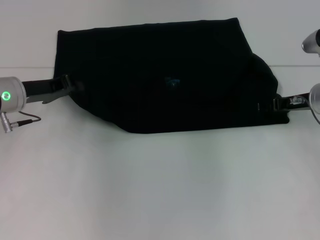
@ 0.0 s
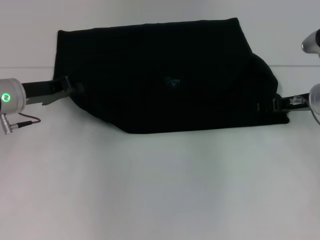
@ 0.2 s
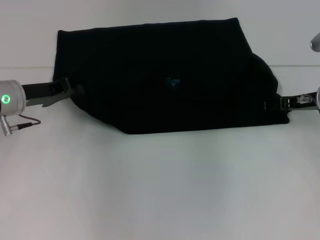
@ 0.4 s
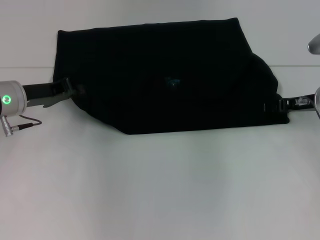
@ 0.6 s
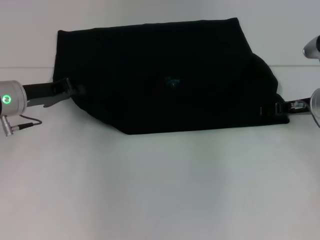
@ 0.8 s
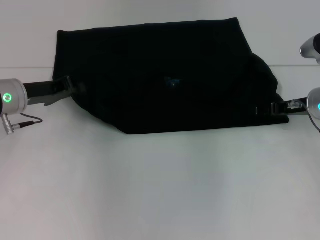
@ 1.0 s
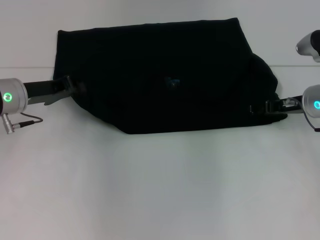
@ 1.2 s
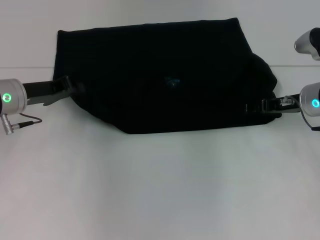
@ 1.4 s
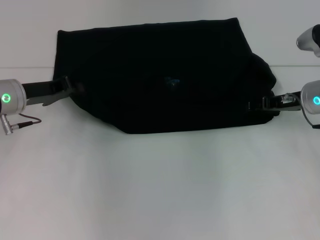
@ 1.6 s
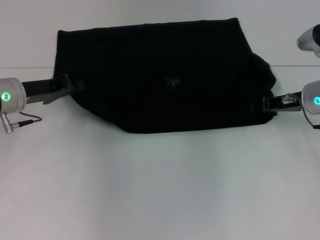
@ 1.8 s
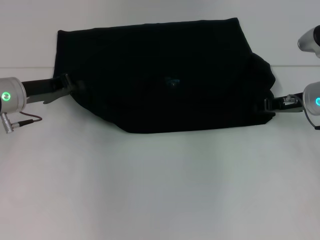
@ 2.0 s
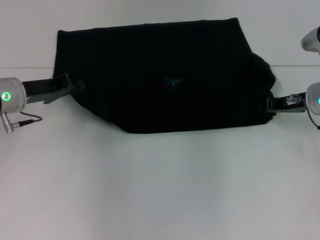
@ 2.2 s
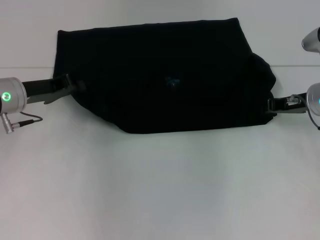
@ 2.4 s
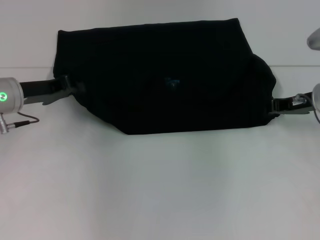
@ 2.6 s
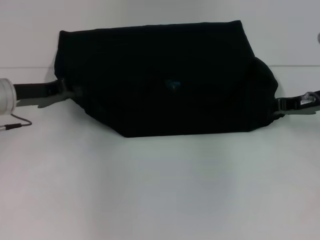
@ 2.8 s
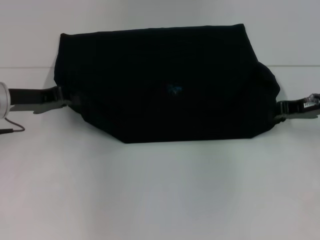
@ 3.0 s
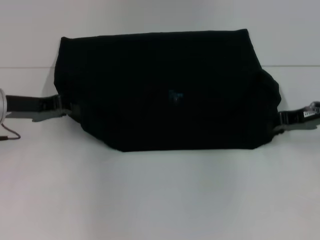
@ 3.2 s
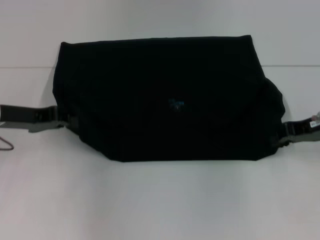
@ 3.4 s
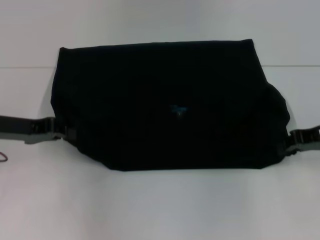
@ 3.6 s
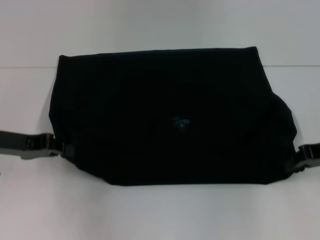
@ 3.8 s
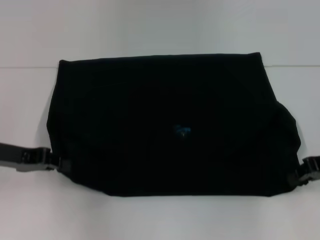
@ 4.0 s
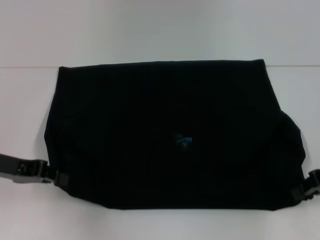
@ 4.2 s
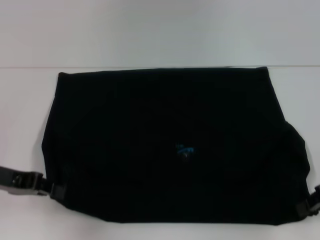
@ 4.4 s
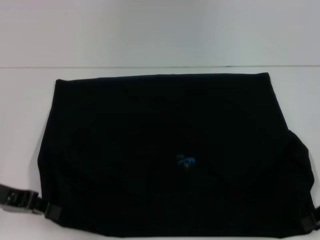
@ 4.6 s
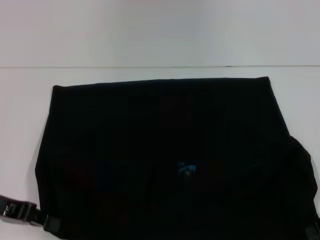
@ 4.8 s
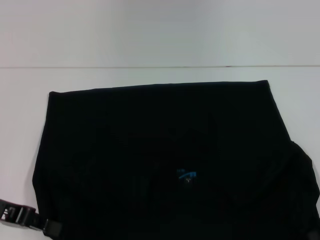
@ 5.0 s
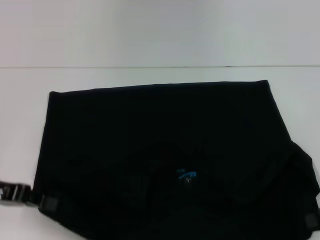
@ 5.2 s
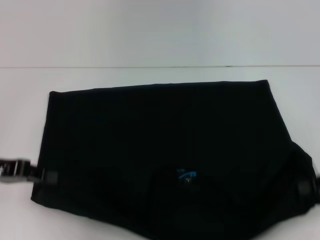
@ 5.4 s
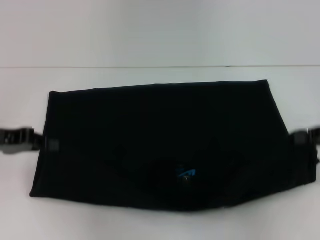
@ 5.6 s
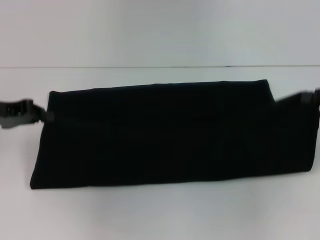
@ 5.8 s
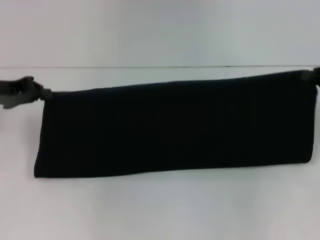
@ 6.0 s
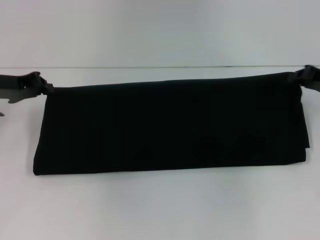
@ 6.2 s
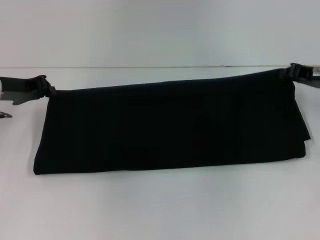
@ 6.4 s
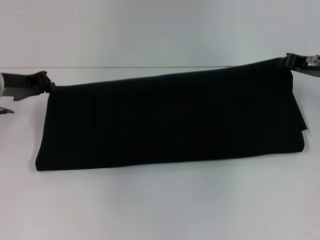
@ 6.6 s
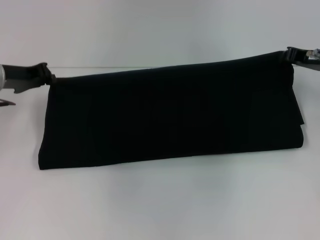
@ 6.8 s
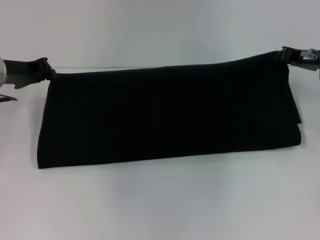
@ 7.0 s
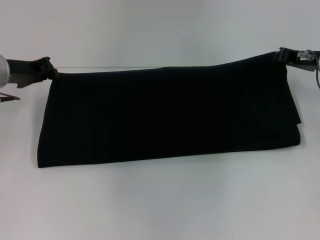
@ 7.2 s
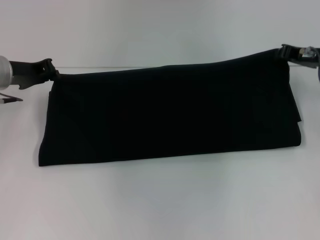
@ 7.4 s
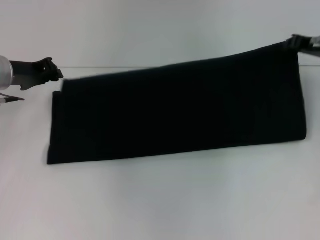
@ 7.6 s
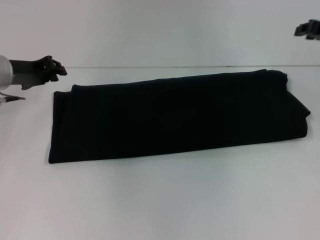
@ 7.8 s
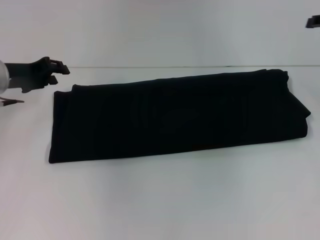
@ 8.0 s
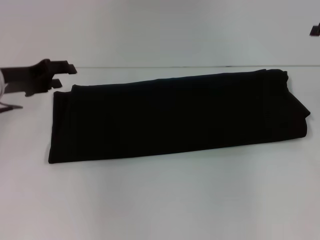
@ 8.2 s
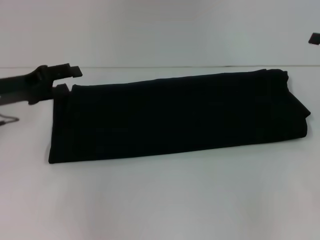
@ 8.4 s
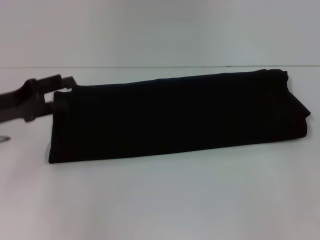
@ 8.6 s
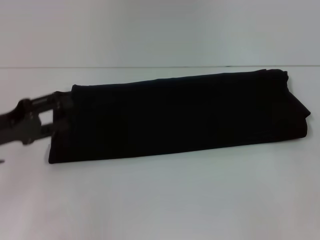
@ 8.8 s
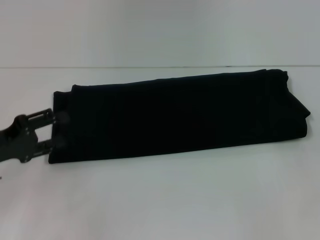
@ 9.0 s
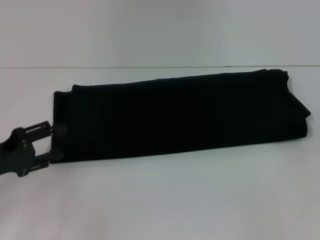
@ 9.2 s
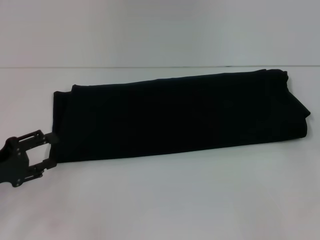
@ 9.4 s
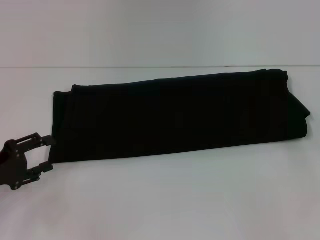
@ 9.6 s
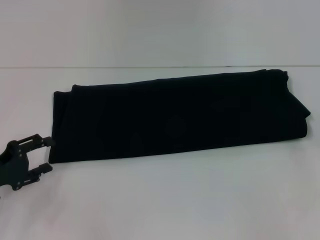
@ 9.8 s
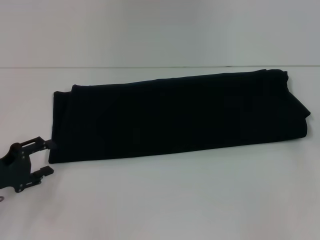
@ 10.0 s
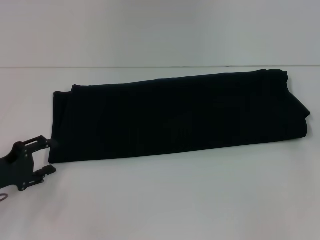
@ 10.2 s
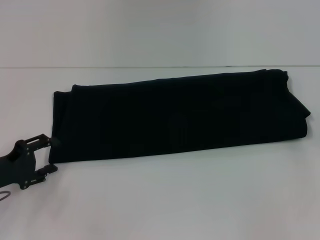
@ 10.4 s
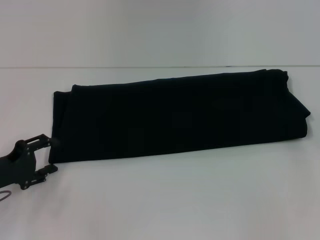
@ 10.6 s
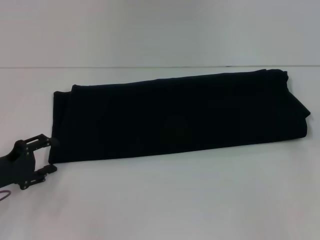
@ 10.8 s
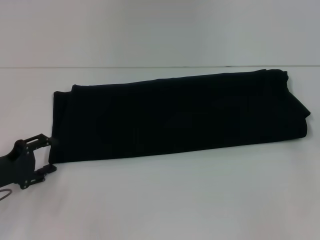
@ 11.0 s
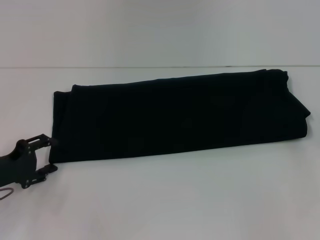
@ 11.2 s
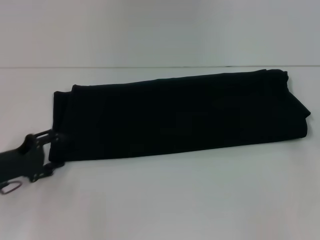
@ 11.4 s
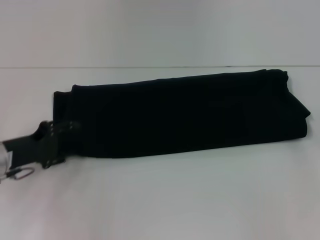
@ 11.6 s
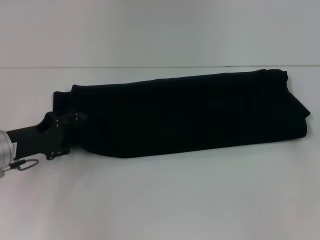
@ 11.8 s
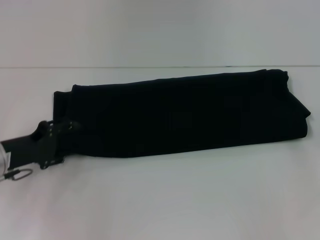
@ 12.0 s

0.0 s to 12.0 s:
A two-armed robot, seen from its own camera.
Step, 0.0 to 4.8 s: Pull the clothes with your left hand.
Step, 0.0 to 4.8 s: Pull the clothes with your right hand.
Step, 5.0 to 7.8 s: Fold the clothes with your right hand.
0.0 to 1.6 s: There are only small adjustments of the grippers.
1.6 to 3.0 s: The right gripper closes.
3.0 to 4.4 s: Both grippers travel together backward, approximately 10 cm.
4.4 to 6.0 s: The two grippers go some 10 cm forward.
6.0 to 7.6 s: The left gripper shifts by some 5 cm. The right gripper travels forward and to the left by roughly 10 cm.
7.6 to 9.0 s: The left gripper moves backward, roughly 15 cm, and opens its fingers. The right gripper is displaced backward and to the right by approximately 15 cm, and opens.

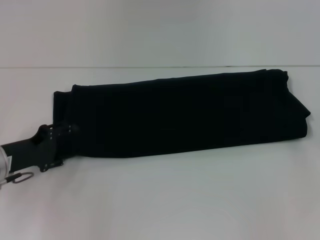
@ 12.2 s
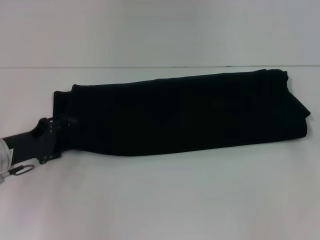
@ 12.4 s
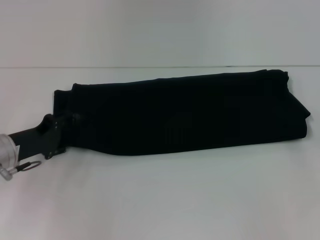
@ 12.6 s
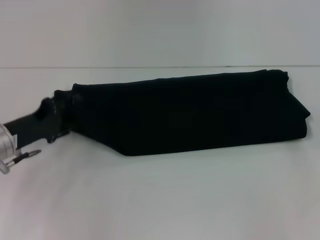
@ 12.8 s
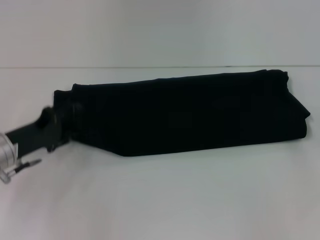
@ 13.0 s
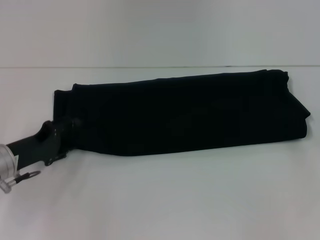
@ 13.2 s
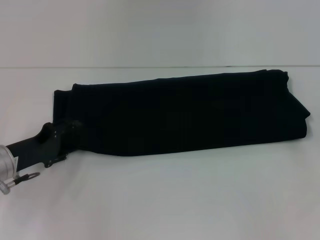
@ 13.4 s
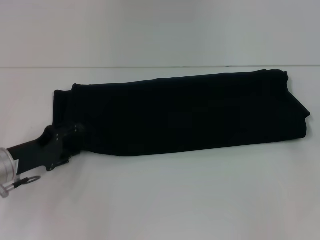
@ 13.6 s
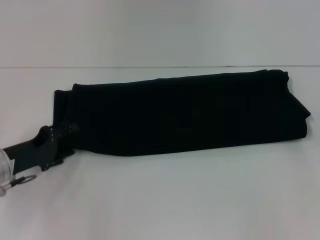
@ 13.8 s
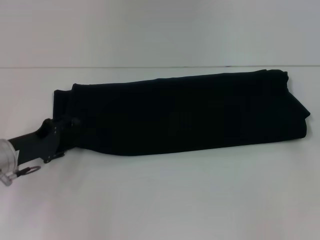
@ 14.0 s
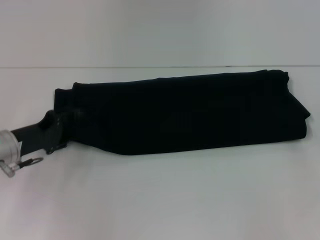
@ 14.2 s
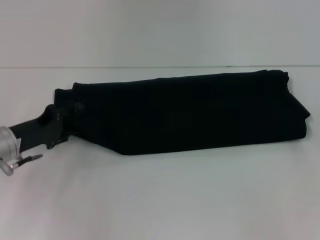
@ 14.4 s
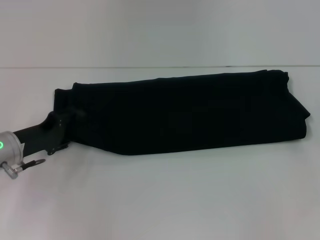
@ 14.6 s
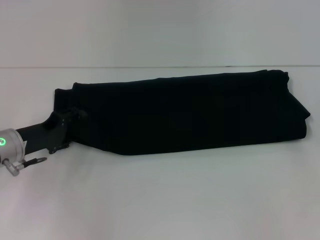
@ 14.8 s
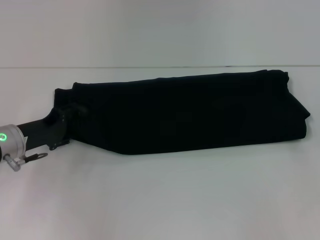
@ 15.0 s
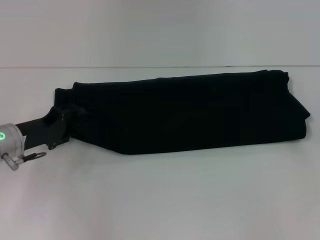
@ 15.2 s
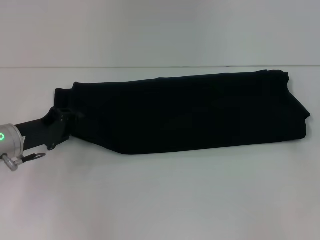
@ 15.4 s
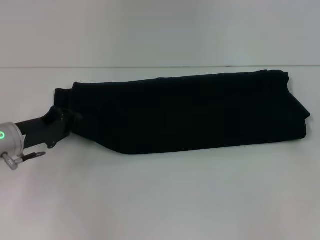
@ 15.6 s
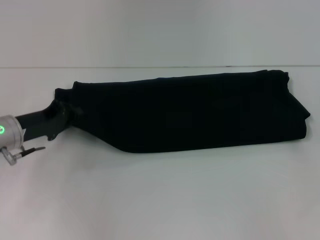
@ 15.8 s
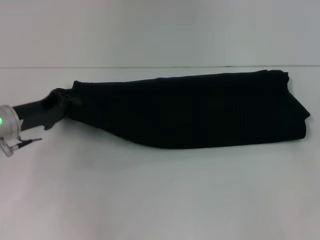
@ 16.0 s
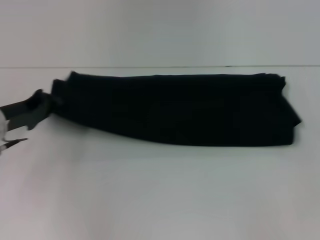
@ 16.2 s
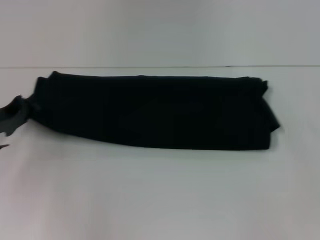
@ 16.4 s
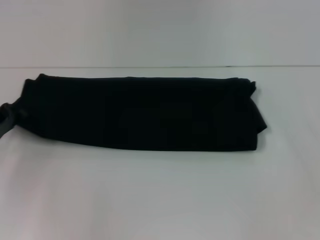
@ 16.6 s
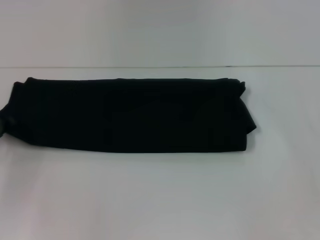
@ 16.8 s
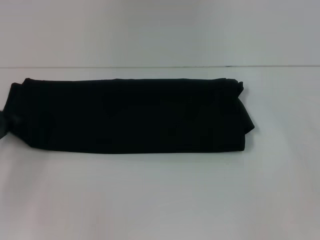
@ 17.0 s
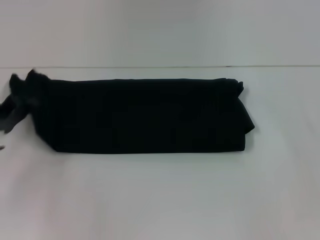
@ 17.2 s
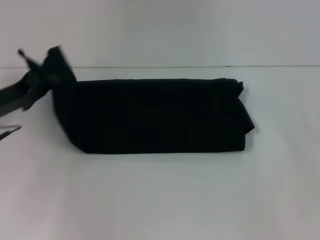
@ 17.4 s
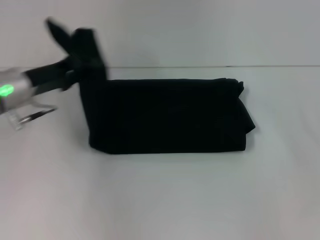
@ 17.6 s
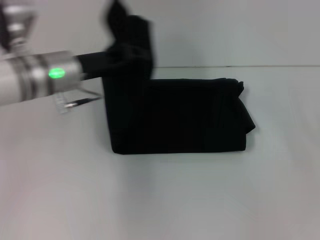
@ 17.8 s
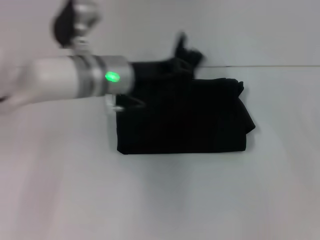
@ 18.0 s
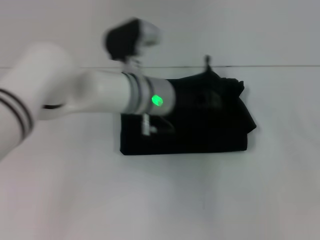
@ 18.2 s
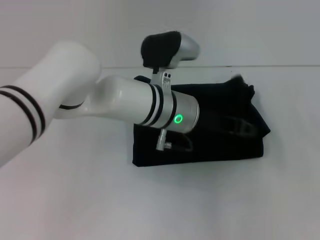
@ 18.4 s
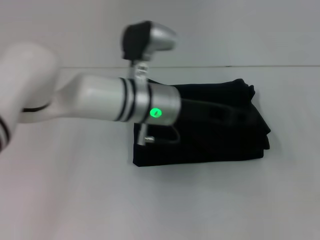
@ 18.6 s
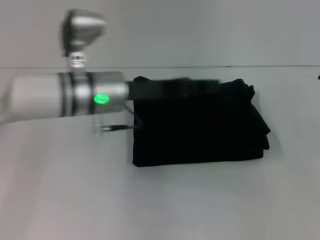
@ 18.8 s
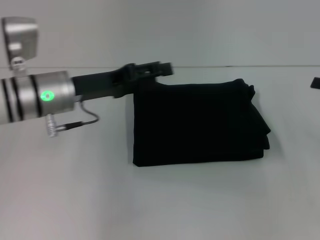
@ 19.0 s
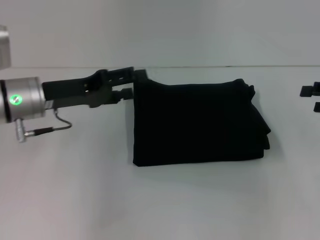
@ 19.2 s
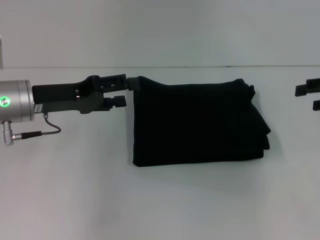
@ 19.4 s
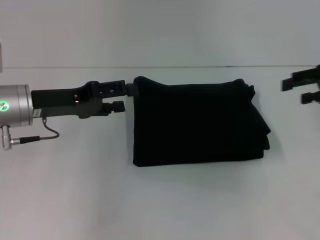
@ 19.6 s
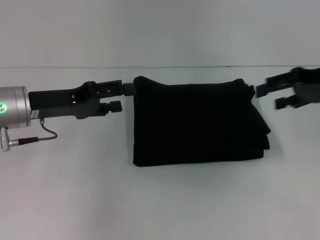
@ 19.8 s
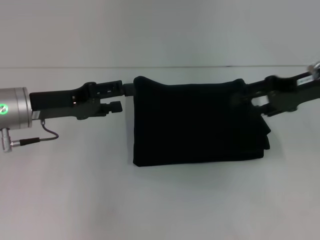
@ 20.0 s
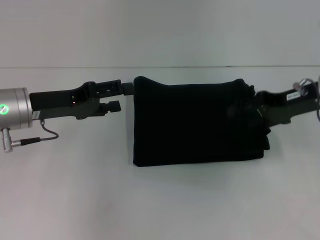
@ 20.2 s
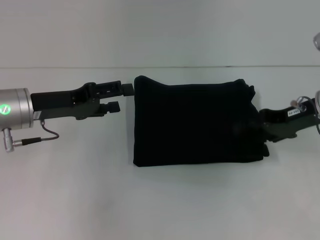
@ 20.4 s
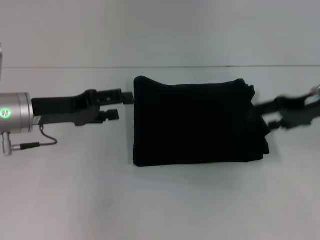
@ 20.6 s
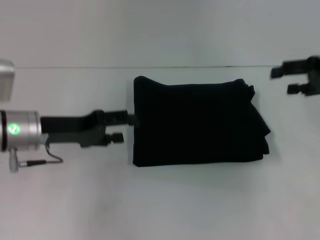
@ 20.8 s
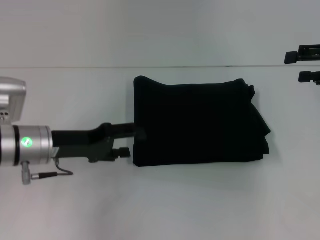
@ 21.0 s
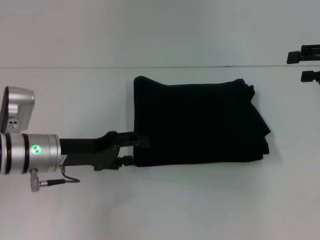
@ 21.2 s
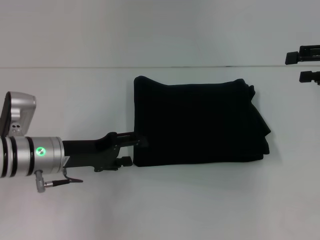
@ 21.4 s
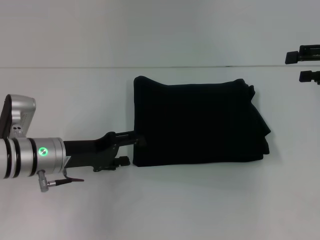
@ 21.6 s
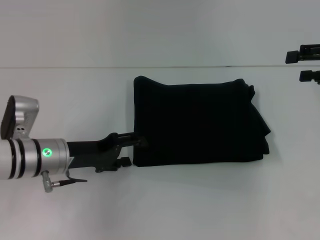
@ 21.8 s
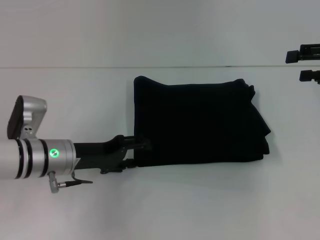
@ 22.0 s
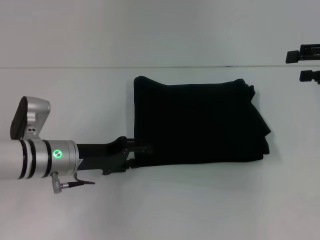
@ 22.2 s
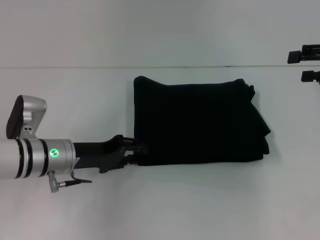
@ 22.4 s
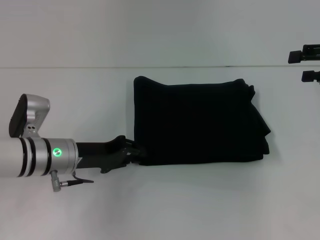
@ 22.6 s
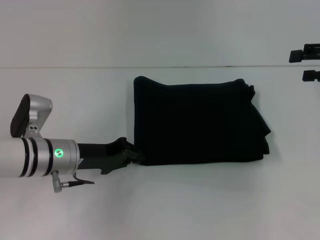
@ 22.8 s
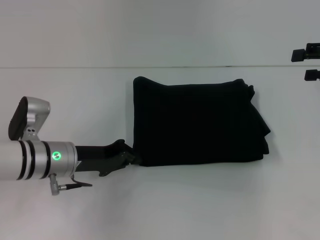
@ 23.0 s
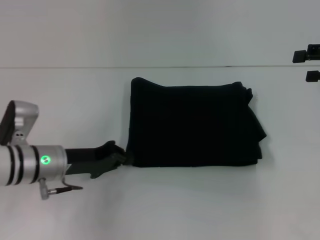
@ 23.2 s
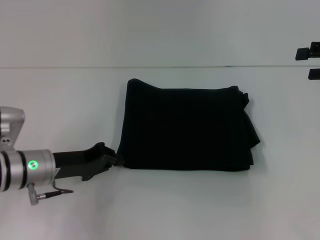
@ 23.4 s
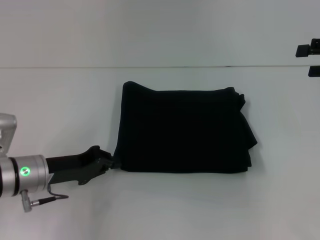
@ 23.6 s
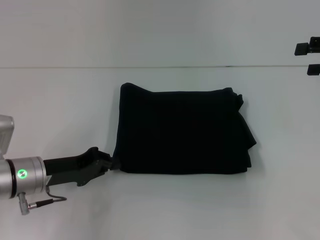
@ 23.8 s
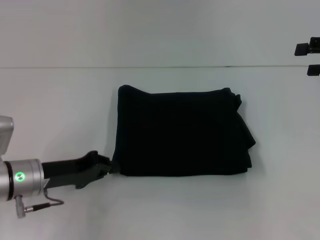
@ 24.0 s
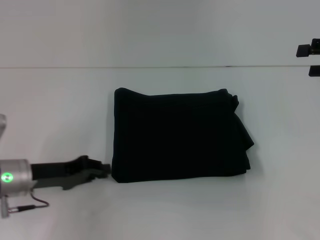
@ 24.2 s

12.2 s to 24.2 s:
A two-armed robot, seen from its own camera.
Step, 12.2 to 18.6 s: Fold the clothes with your left hand.
12.2 to 15.2 s: The grippers stay close to where they were, moving slightly.
15.2 to 16.6 s: The left gripper heads to the left, covering about 5 cm, and closes.
16.6 to 18.2 s: The left gripper heads to the right, covering about 30 cm.
18.2 to 19.8 s: The right gripper goes approximately 15 cm to the left, upward and forward. The left gripper heads to the left, covering some 20 cm, and opens.
19.8 to 21.2 s: The right gripper ends up about 5 cm from where it was. Meanwhile the left gripper heads downward, covering about 5 cm.
21.2 to 22.6 s: The left gripper closes up.
22.6 to 24.2 s: The left gripper heads to the left, covering roughly 5 cm.
